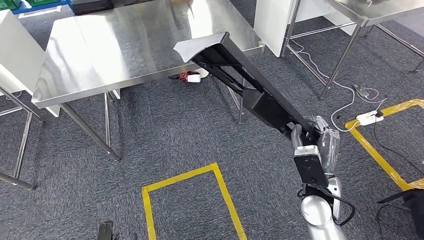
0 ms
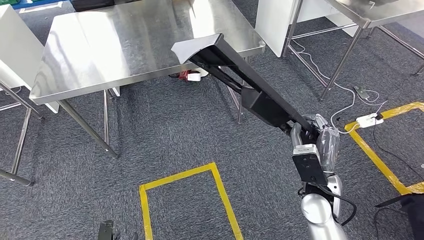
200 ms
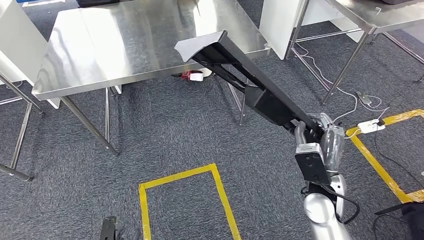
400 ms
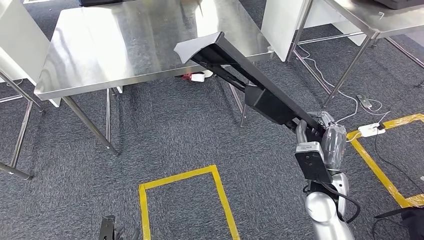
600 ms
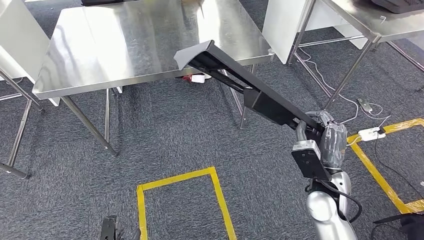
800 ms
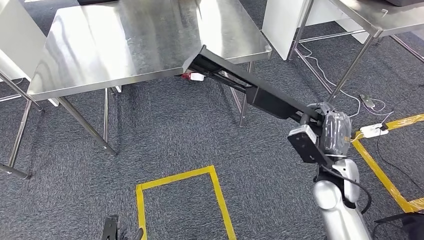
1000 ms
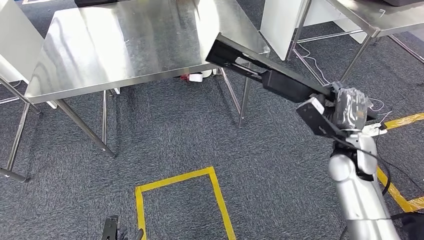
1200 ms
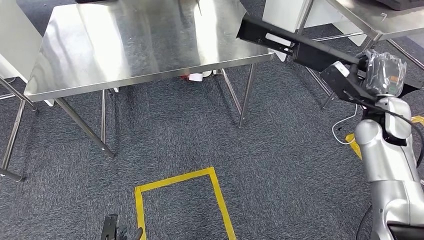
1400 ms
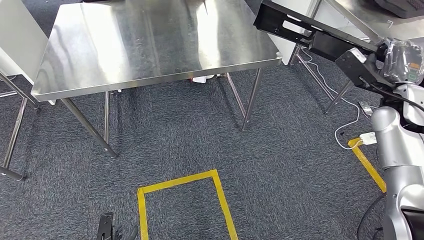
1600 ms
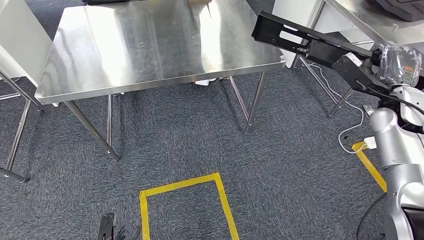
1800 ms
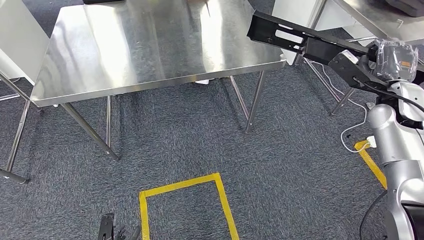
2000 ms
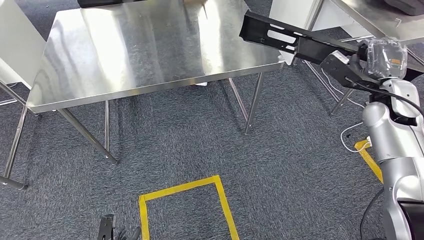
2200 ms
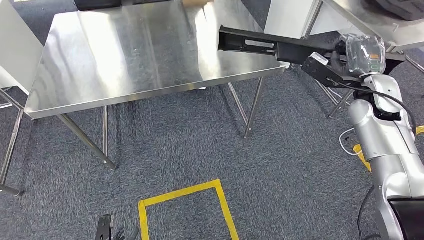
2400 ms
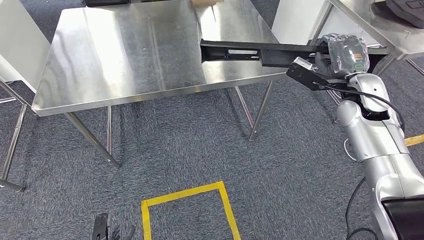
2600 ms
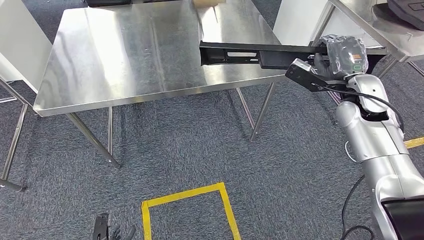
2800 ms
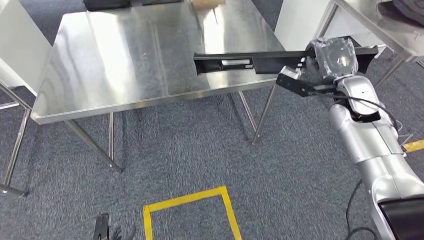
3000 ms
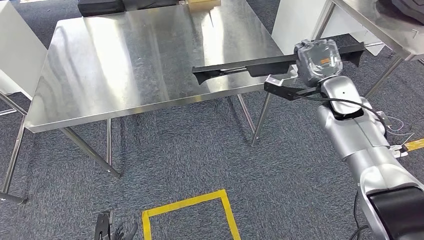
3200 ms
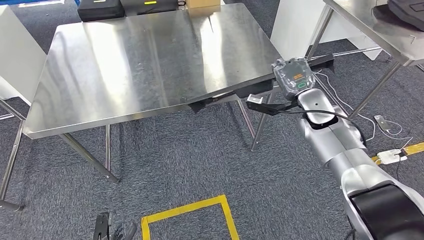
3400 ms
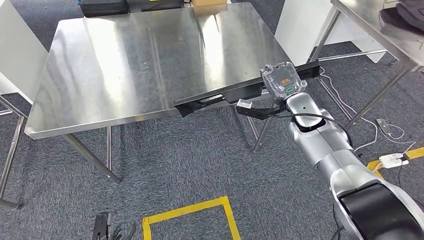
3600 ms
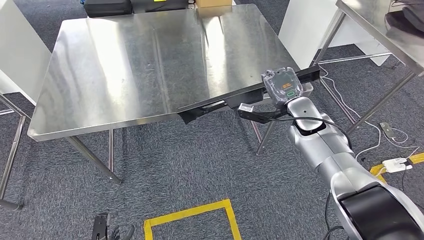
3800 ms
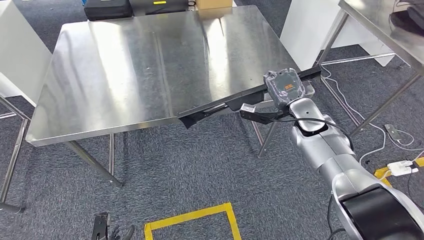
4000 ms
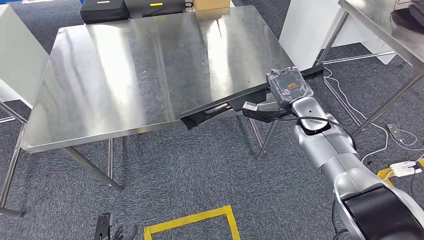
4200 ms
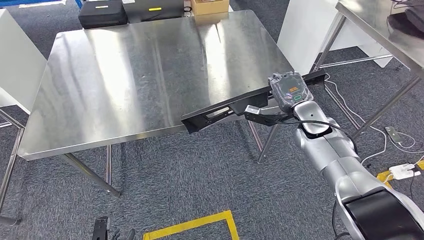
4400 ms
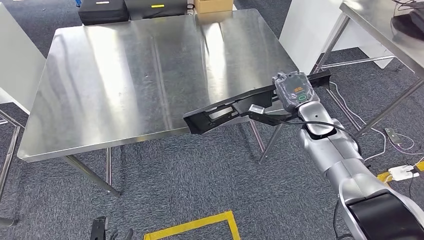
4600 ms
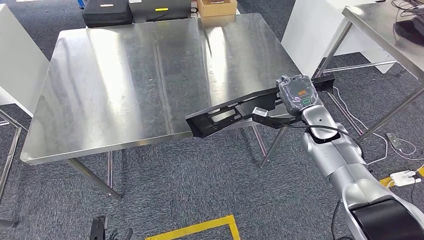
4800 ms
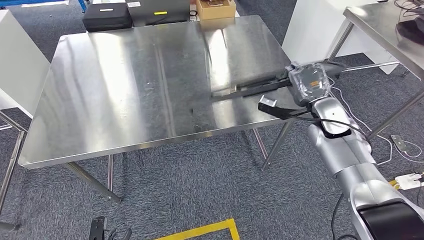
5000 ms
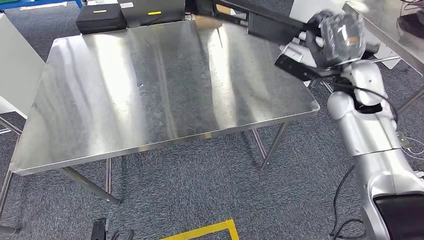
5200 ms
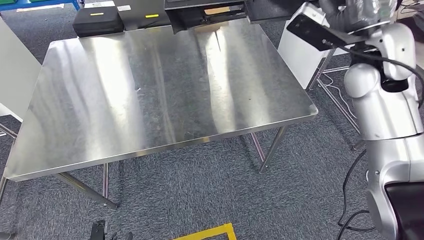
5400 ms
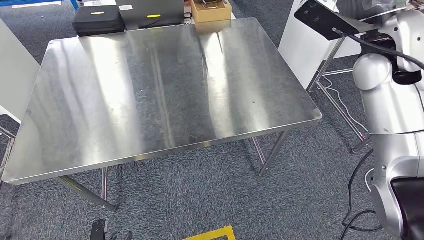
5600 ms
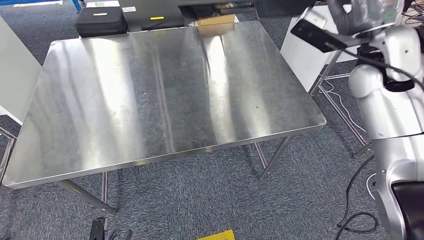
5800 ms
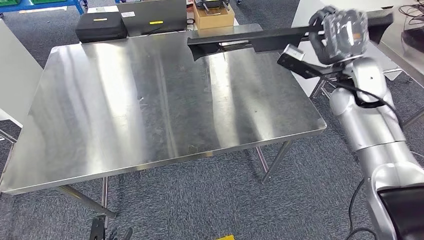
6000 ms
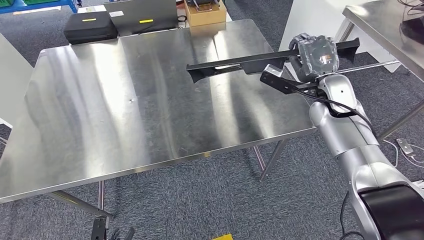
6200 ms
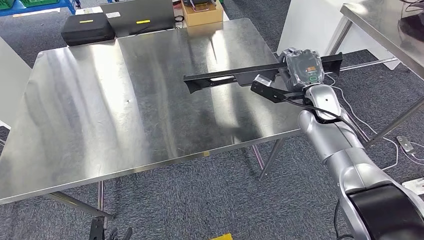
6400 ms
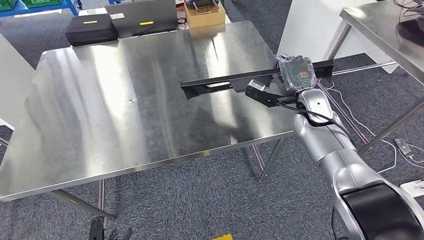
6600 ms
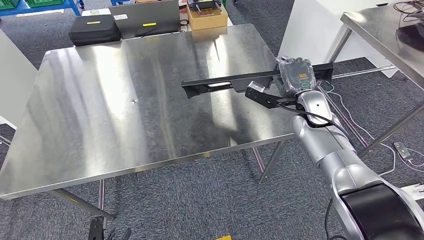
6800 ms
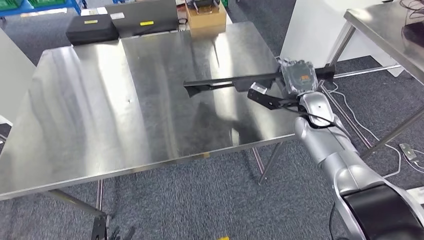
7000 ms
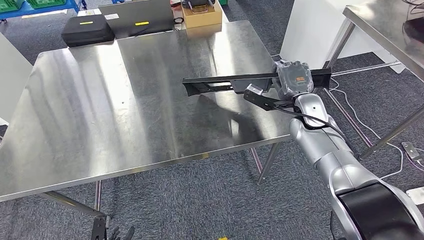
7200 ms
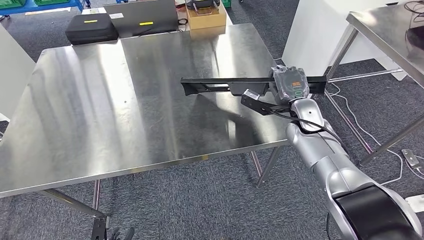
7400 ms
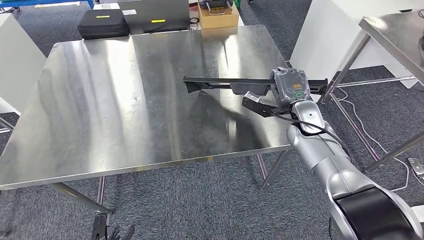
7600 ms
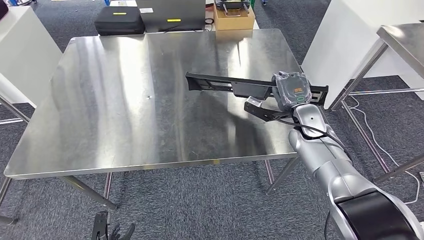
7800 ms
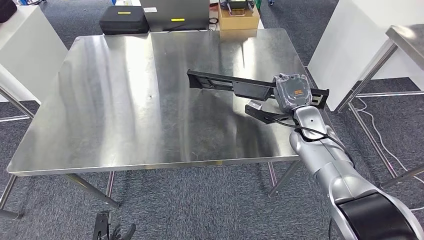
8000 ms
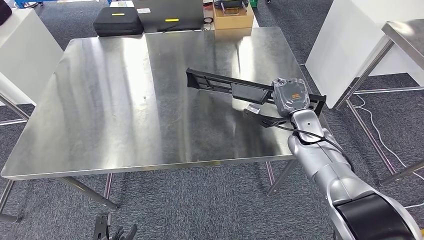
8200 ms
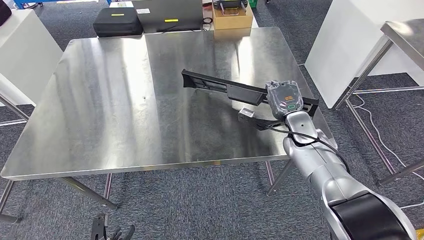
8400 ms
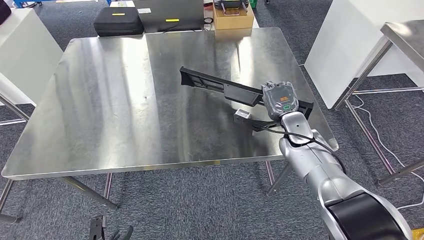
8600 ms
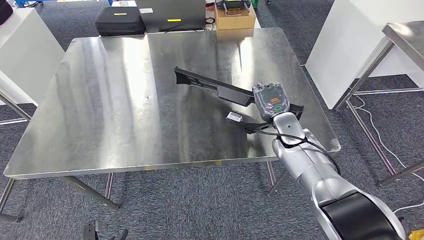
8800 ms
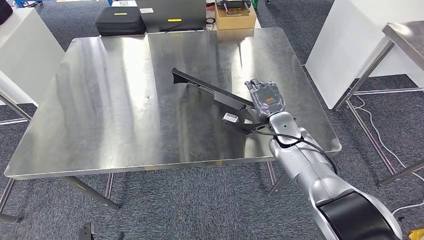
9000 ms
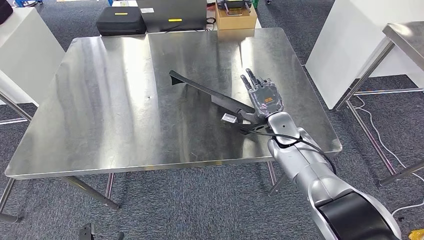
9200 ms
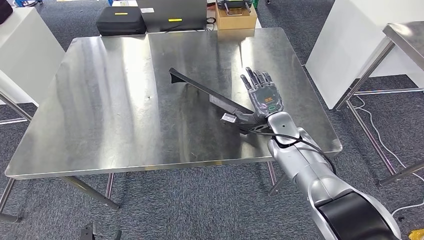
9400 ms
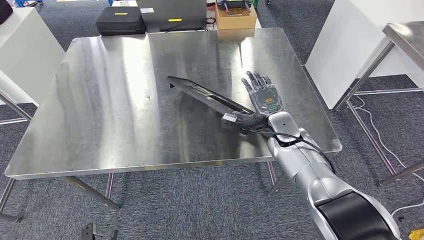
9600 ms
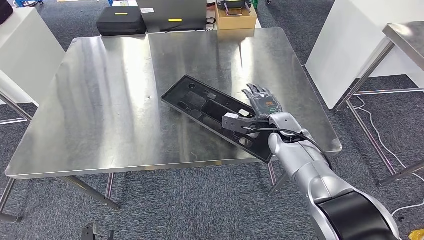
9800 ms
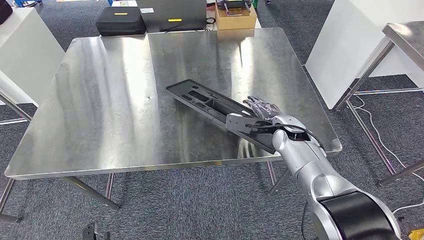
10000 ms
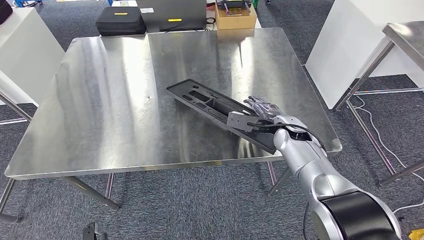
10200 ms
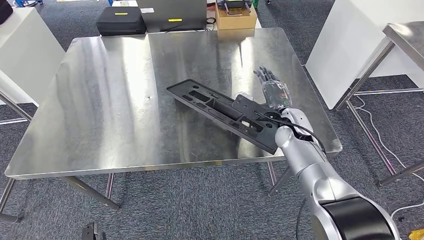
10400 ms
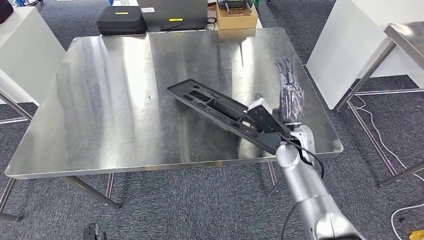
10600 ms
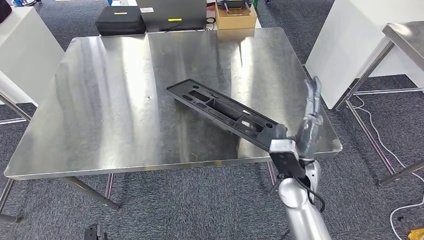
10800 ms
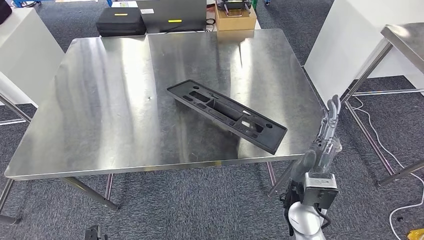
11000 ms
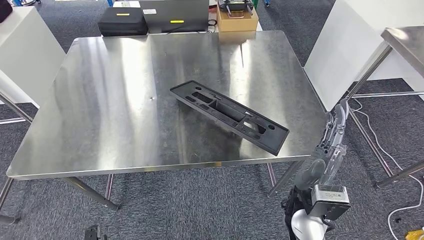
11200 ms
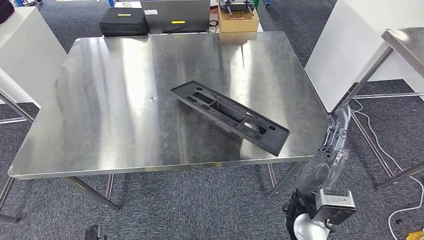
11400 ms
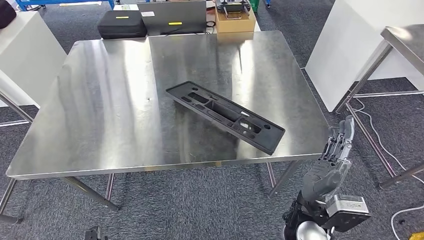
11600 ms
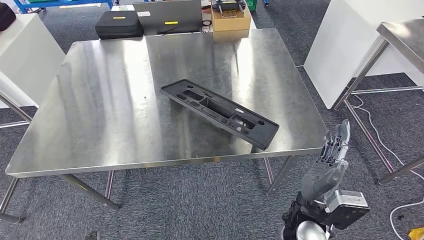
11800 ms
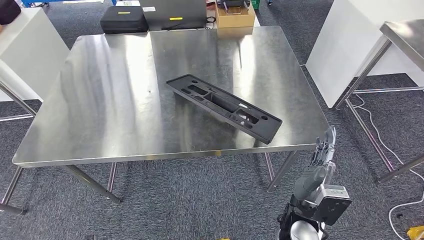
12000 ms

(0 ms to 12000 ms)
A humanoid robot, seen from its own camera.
Step, 1000 ms - 10600 ms: Insert the large material into the corresponding hole on the workbench.

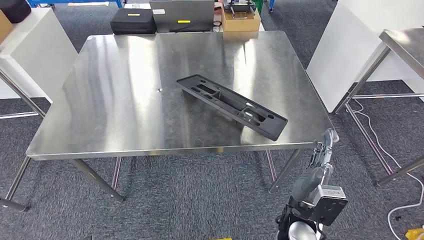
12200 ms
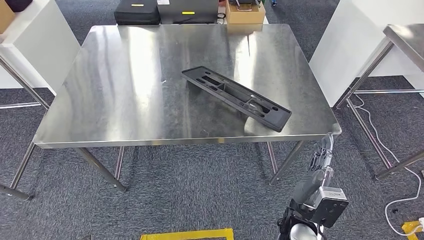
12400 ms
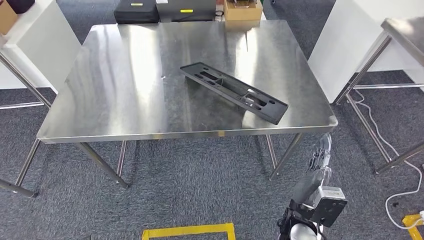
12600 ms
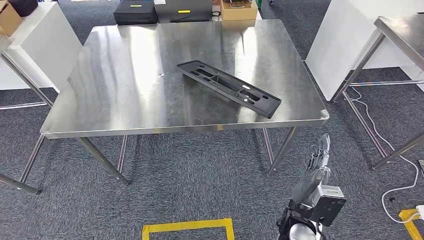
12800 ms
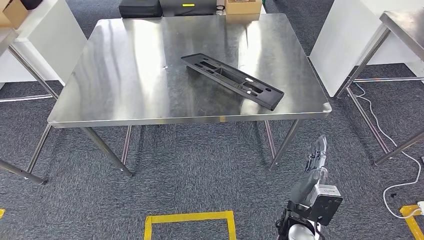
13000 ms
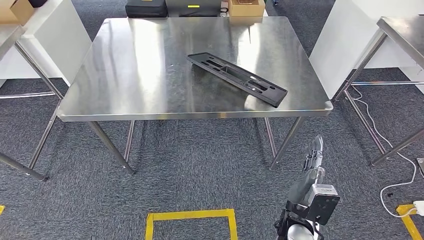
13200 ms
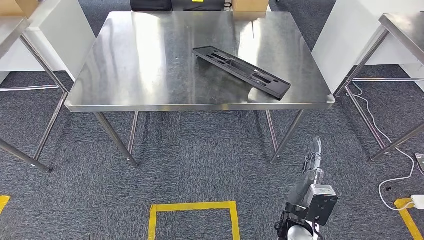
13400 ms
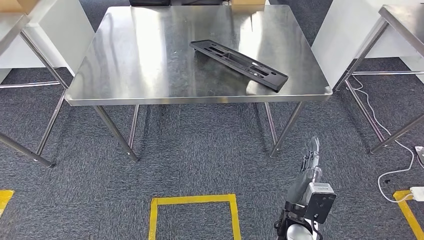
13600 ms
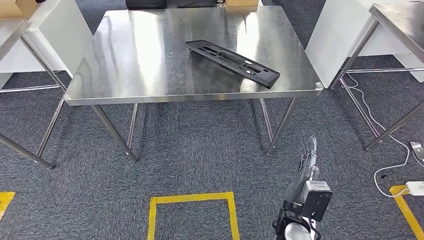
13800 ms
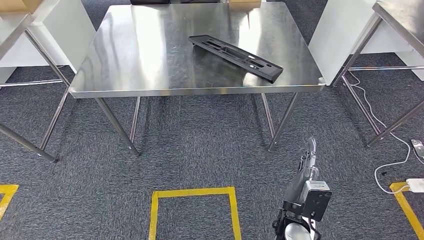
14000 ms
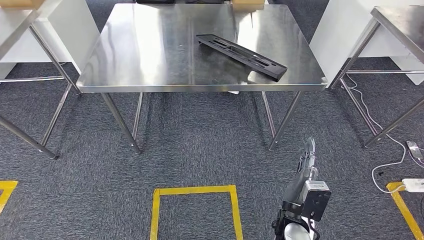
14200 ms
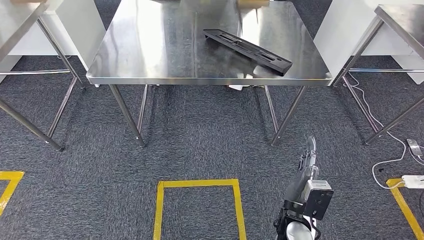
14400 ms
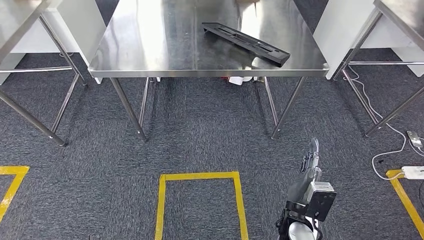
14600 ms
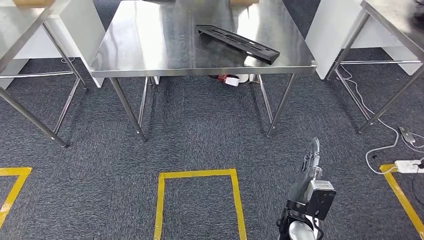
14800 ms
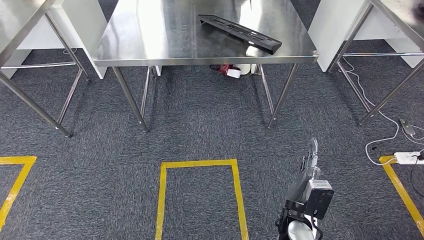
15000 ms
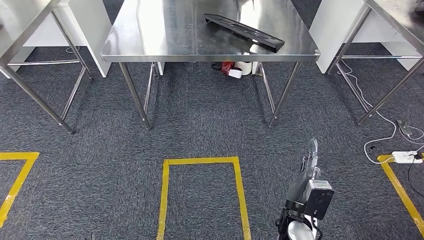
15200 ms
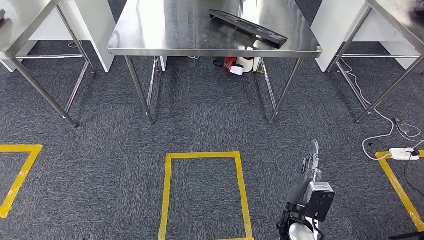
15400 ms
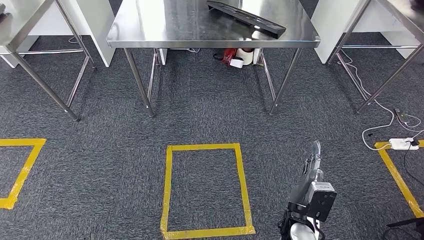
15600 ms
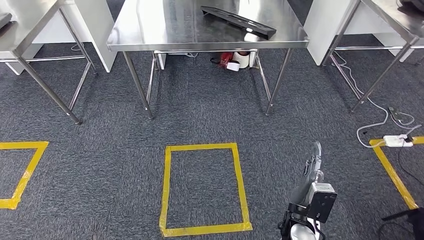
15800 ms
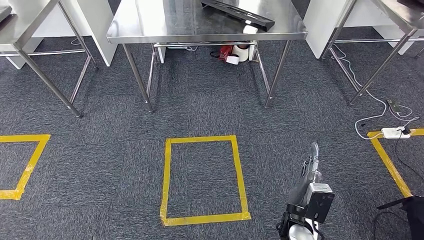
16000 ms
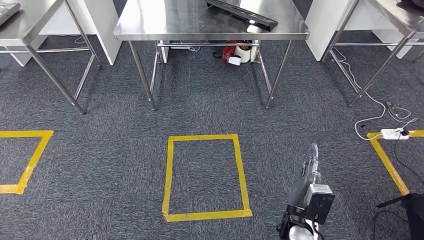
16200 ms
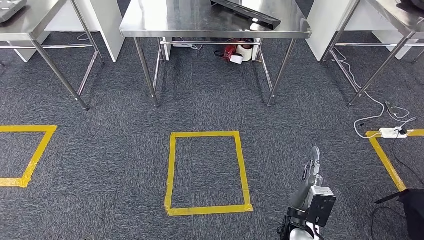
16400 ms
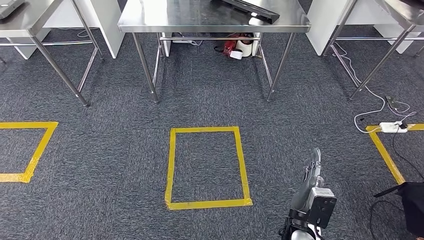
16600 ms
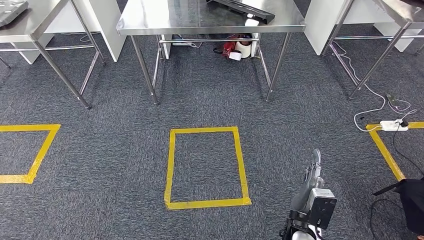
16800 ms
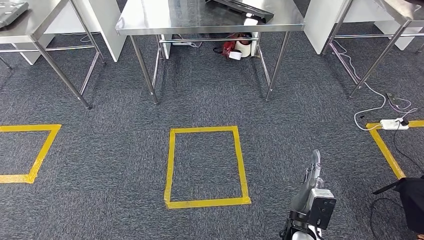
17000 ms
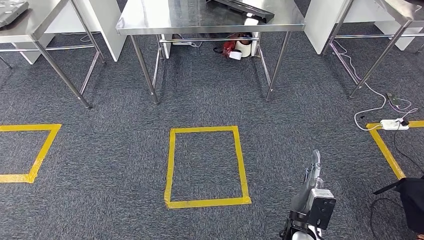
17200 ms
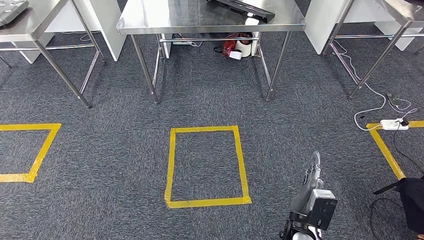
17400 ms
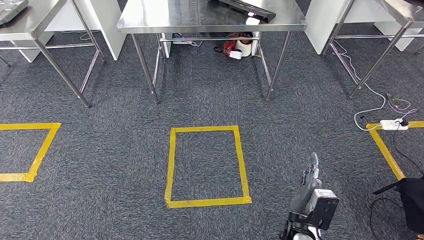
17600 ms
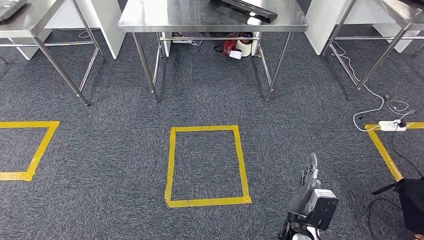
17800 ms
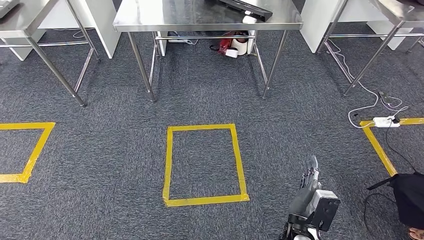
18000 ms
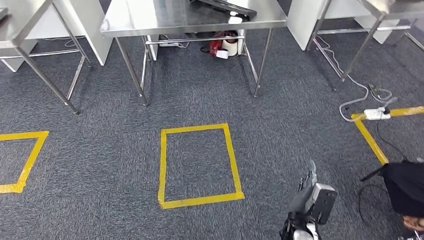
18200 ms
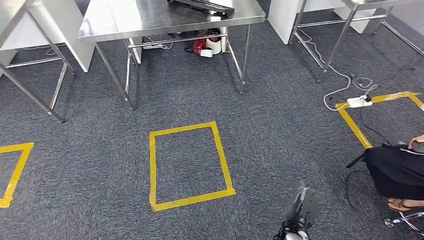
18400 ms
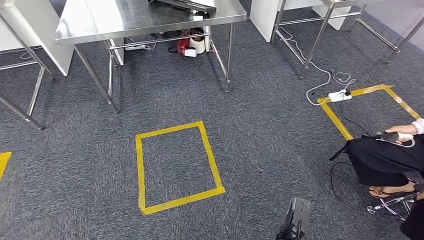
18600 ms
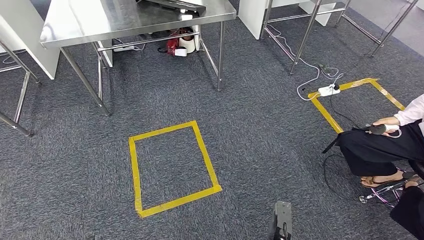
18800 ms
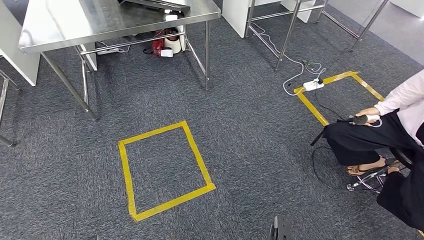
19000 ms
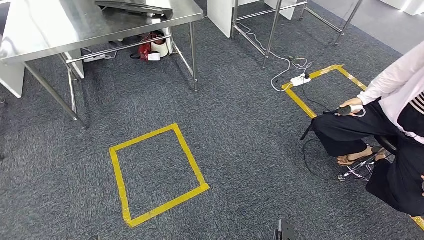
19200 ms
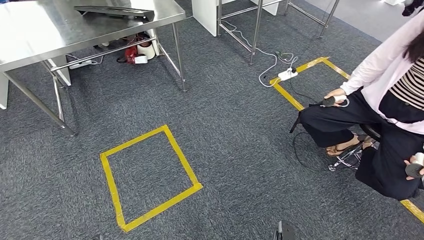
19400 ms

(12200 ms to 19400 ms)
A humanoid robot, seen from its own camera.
16600 ms - 18000 ms: The hands move only a little.
